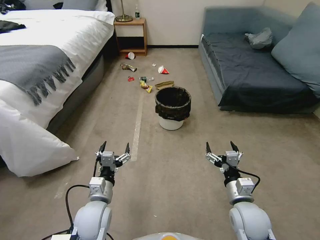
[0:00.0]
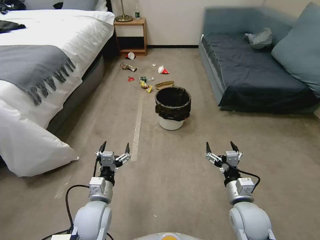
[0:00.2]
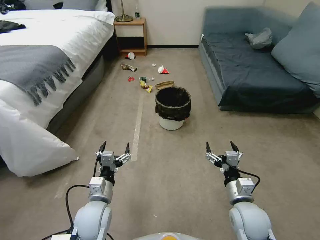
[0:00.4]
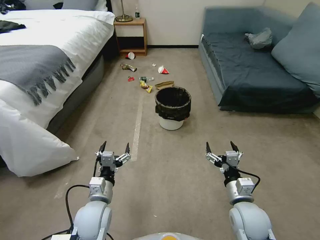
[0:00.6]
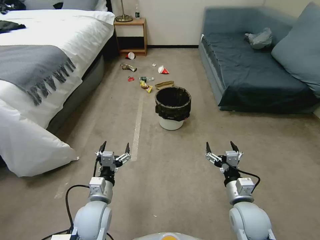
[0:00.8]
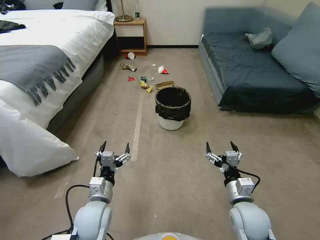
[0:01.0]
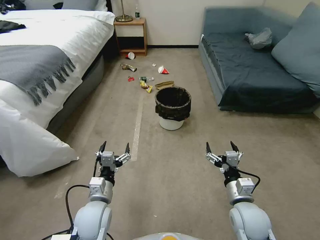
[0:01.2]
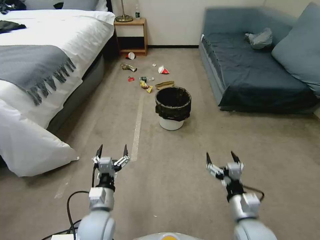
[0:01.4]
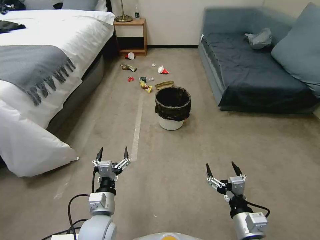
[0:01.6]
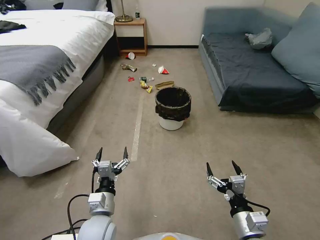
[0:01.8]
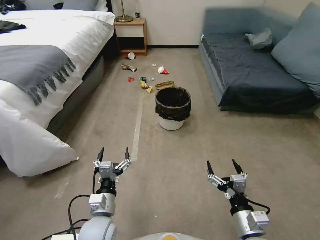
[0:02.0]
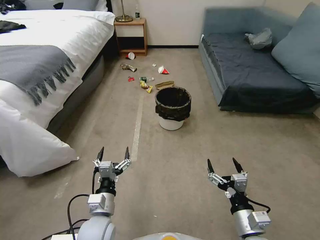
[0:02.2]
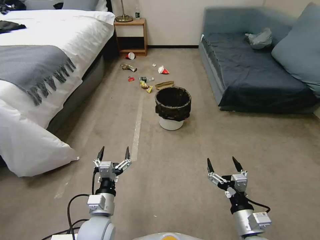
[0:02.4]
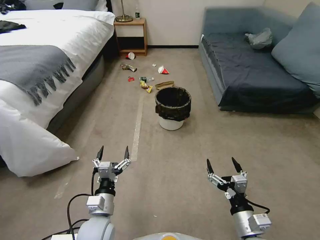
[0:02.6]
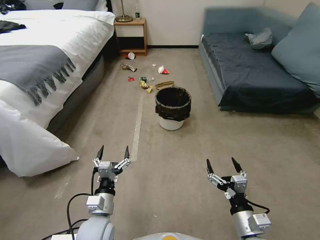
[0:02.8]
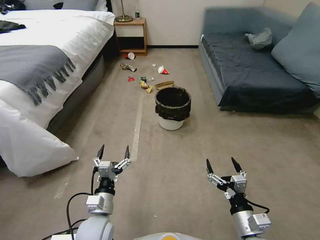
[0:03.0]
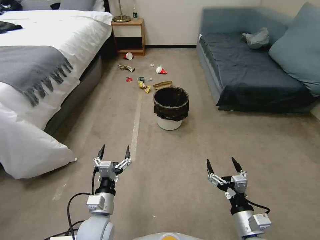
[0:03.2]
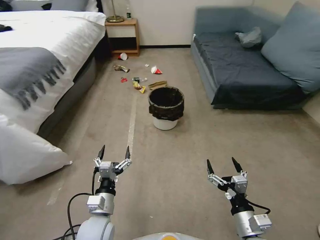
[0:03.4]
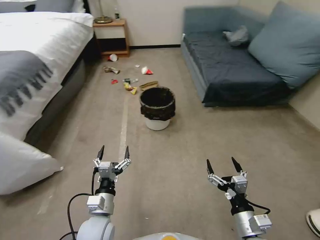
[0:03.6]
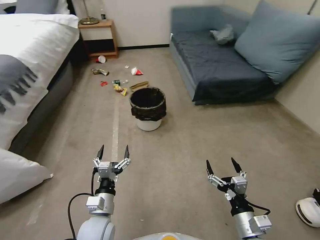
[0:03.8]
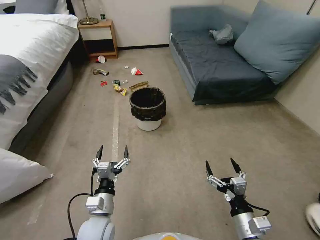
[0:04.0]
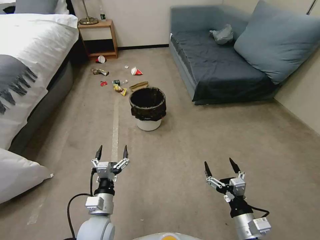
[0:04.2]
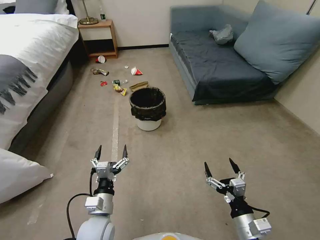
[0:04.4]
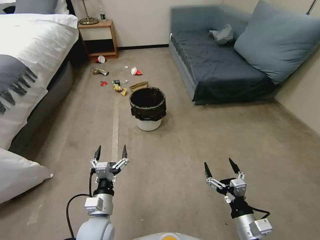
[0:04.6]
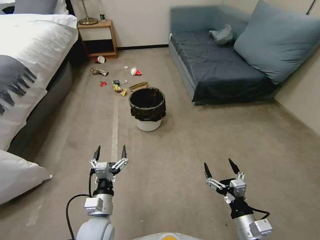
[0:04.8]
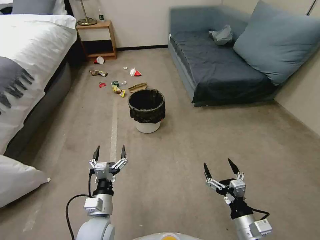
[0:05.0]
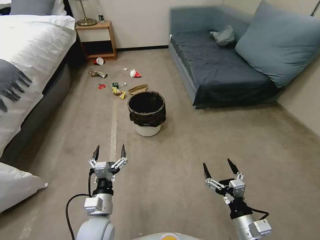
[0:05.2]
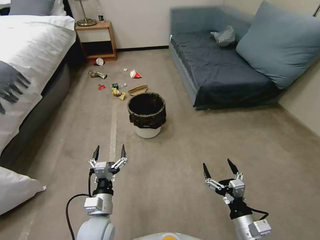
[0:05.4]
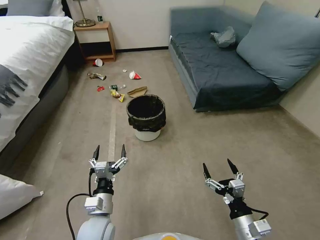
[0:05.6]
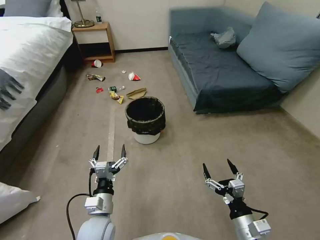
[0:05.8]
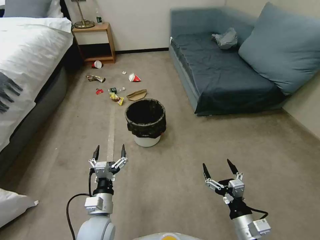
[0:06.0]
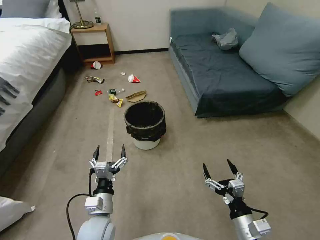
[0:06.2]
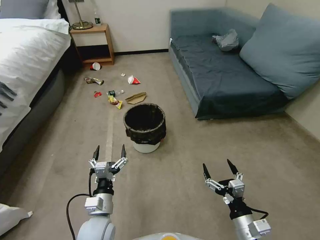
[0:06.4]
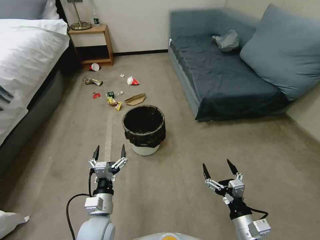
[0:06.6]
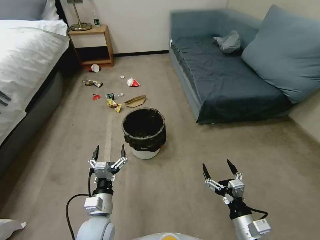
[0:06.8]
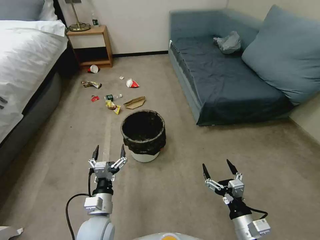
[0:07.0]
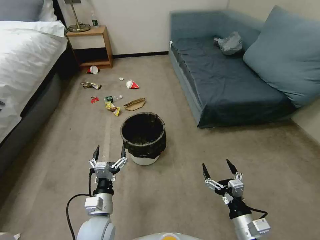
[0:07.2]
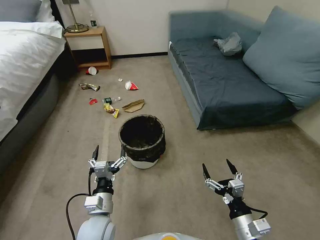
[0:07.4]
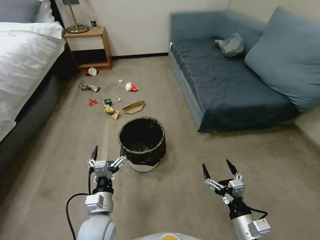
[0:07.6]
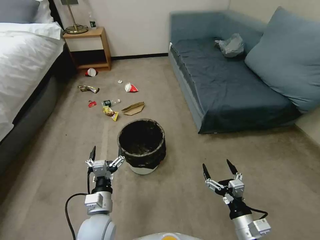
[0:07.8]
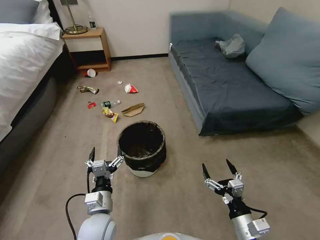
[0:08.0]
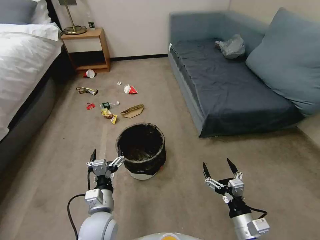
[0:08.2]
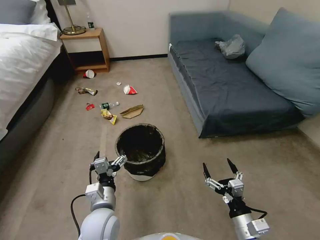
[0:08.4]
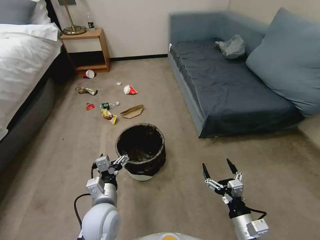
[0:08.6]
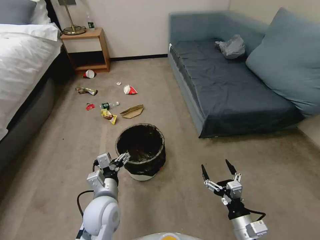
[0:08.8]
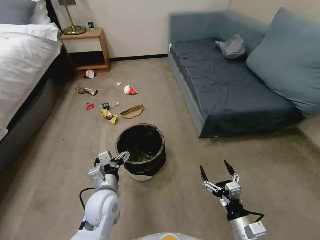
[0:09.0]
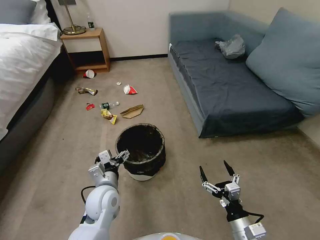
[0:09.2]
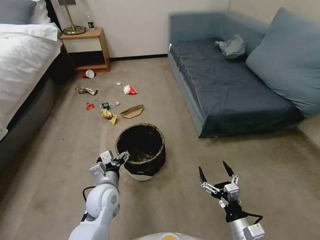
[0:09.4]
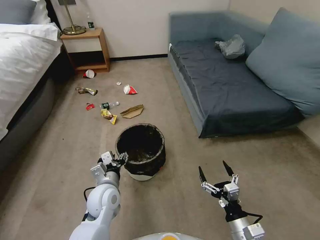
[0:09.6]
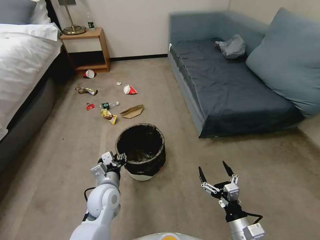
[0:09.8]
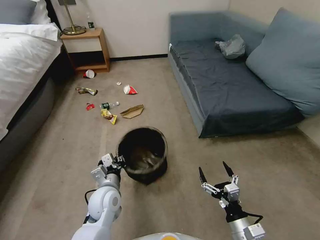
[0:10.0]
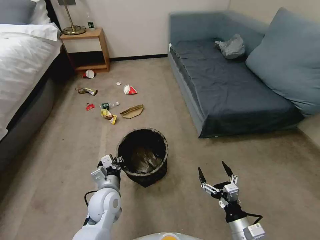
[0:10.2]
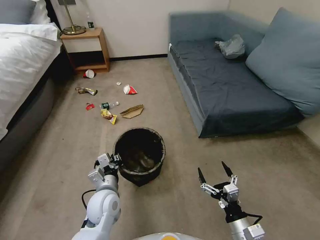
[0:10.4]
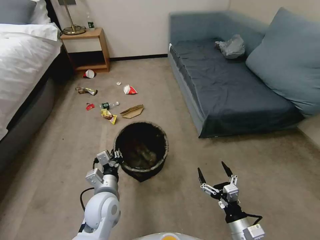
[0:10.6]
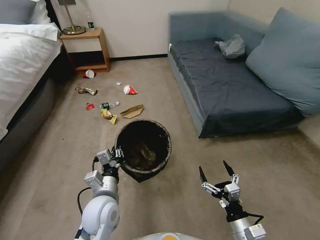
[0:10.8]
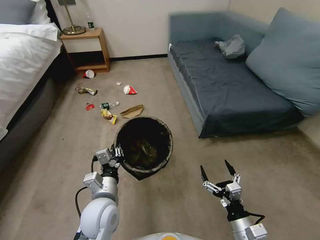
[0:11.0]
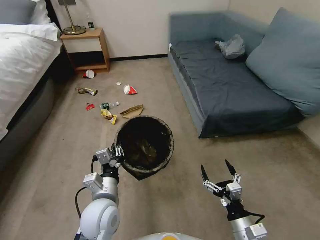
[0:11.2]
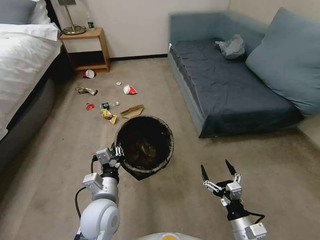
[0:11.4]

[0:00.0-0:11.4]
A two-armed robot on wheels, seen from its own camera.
Task of the whole recording: Pick up the trash can from the floor.
0:01.4 to 0:02.8: The grippers move only a little.
0:04.2 to 0:05.6: Both grippers stay put.
0:07.2 to 0:08.6: The left gripper shifts by roughly 5 cm.
0:08.6 to 0:10.0: The left gripper heads forward, covering about 5 cm, and closes.
0:10.0 to 0:11.4: The left gripper moves upward and backward, roughly 10 cm.

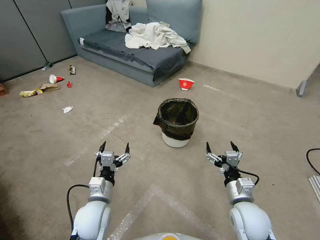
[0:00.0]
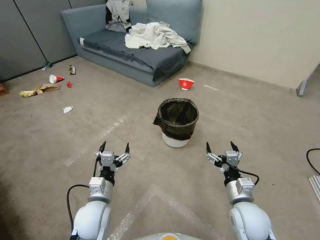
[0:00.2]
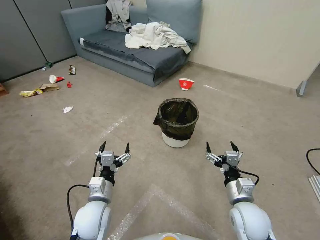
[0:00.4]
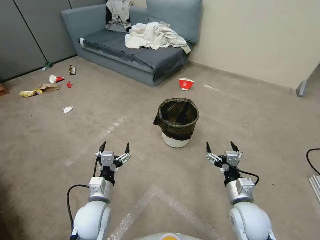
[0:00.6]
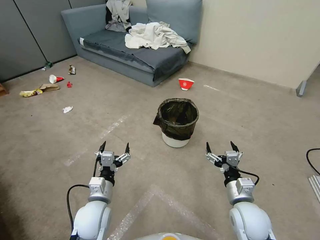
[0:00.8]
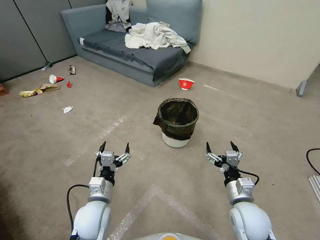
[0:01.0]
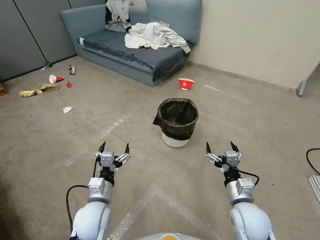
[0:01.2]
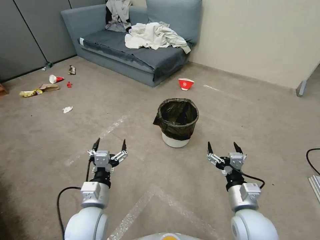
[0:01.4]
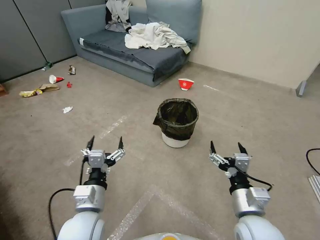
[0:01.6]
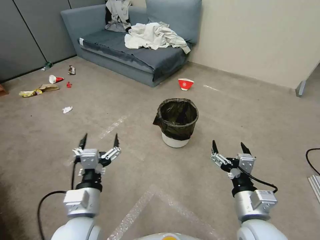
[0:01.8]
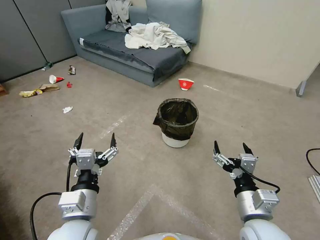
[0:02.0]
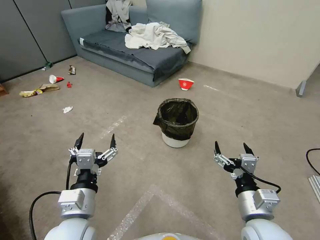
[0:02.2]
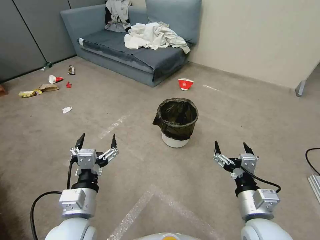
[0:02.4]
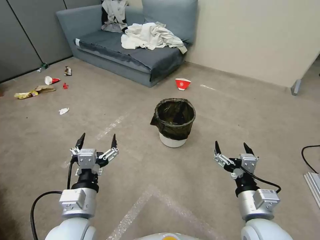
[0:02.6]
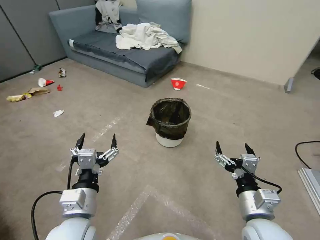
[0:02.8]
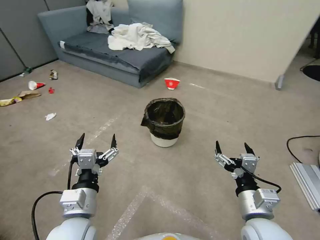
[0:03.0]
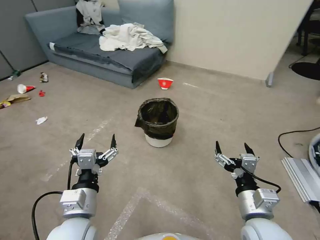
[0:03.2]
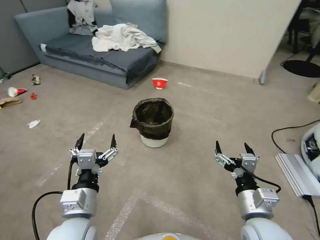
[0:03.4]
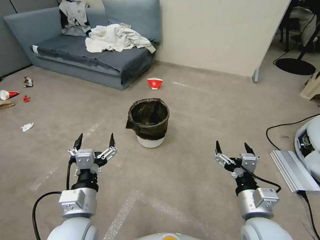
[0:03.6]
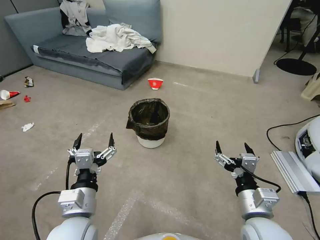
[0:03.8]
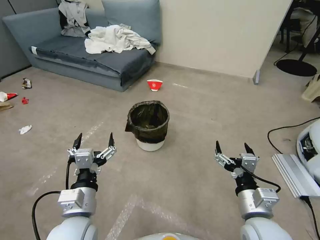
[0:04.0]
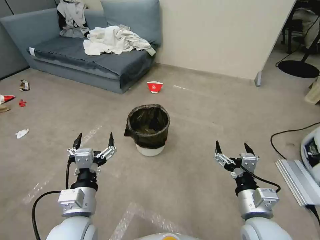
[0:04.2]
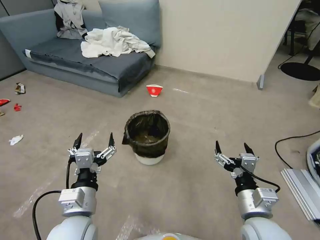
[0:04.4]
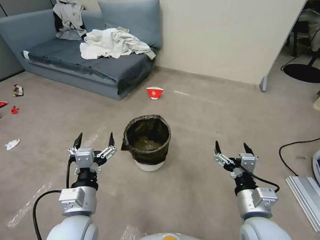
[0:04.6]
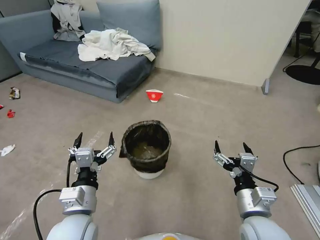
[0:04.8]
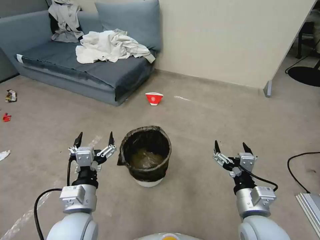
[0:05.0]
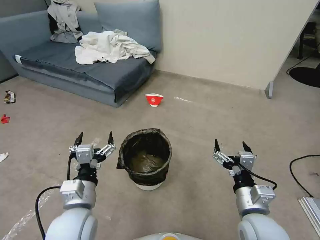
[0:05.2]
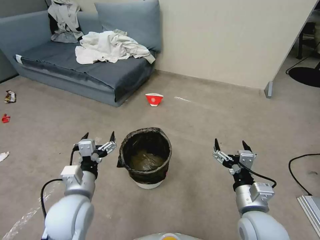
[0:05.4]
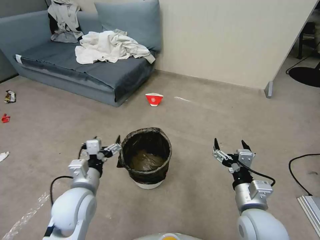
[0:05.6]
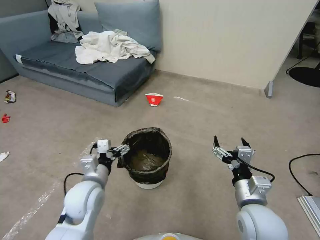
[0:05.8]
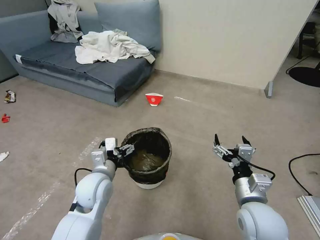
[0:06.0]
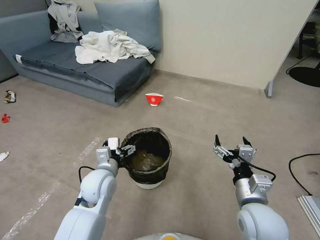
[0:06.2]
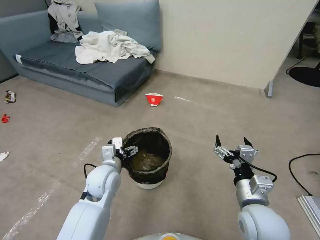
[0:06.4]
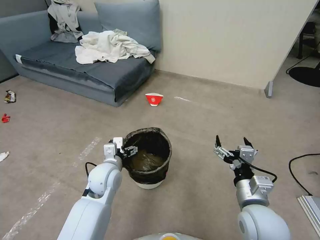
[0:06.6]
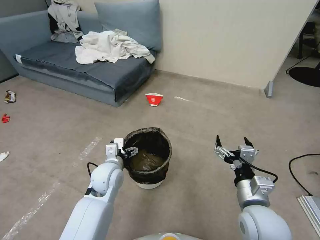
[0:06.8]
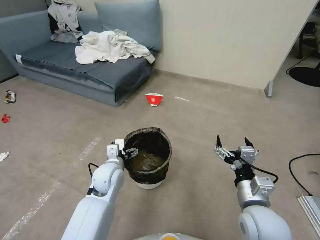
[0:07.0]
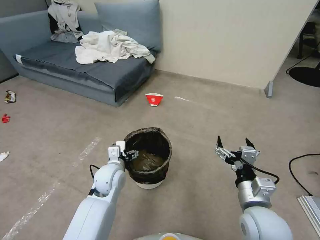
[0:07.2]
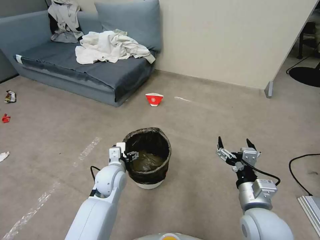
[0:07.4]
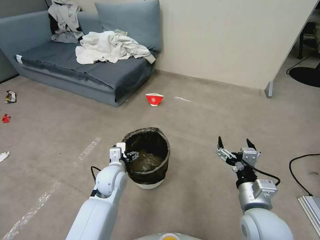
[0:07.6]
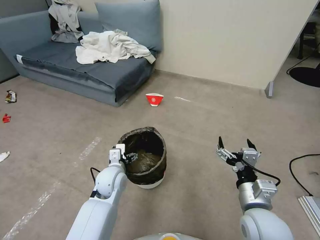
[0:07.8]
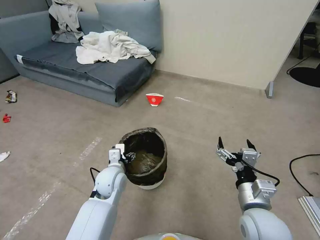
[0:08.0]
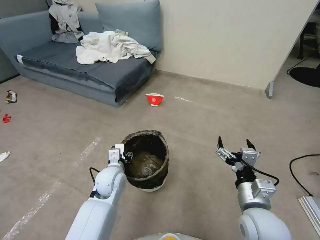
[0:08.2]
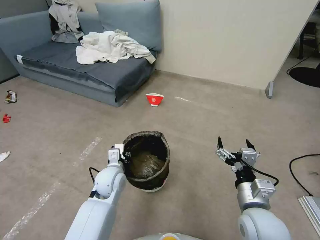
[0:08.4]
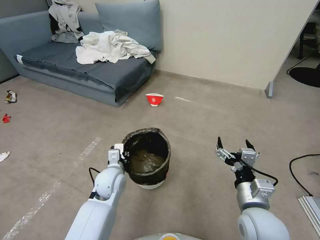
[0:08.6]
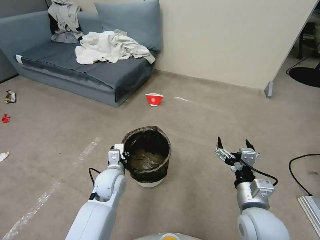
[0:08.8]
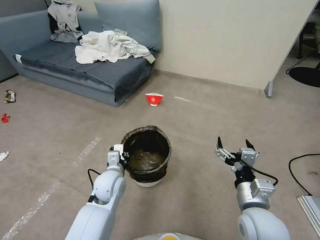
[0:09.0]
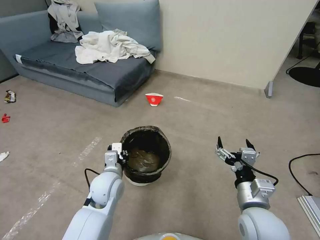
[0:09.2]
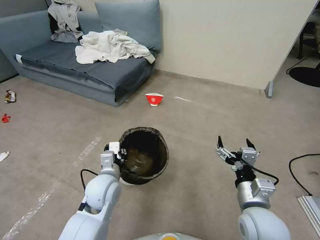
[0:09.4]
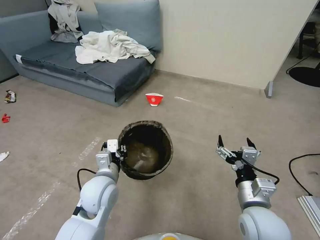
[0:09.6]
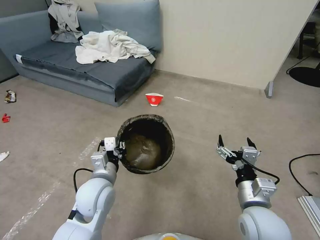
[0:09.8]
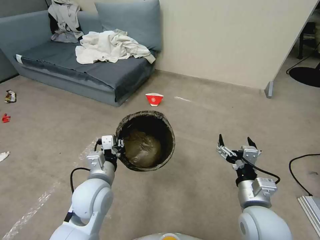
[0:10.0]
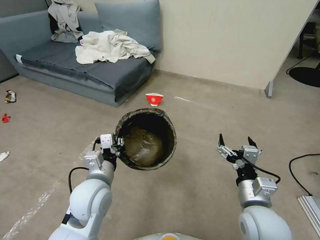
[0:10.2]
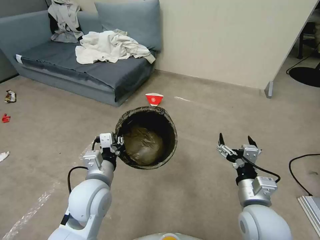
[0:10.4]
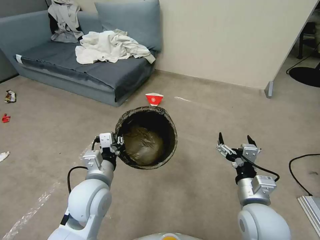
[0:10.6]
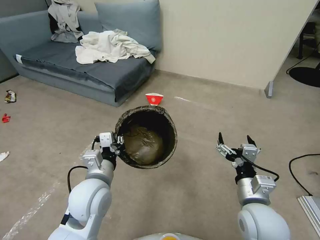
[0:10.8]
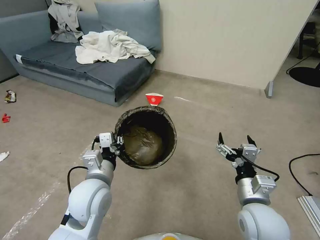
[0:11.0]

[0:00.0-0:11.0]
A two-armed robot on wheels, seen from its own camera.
Task of the whole recording: Pick up the trash can from the floor.
0:04.8 to 0:06.2: The left gripper shifts roughly 15 cm forward.
0:06.2 to 0:07.8: The left gripper changes place by approximately 5 cm.
0:07.8 to 0:09.4: The left gripper changes place by about 5 cm, and closes up.
0:09.4 to 0:11.0: The left gripper moves upward, roughly 5 cm.
